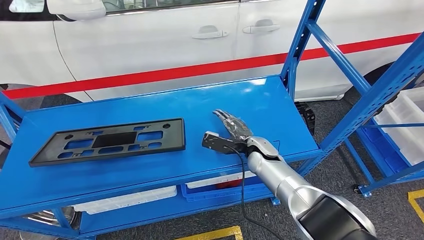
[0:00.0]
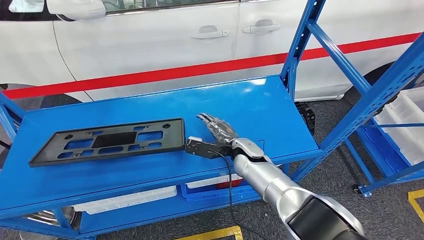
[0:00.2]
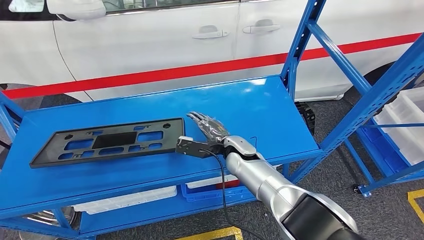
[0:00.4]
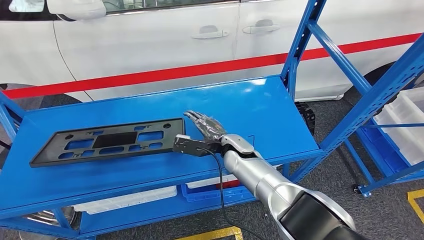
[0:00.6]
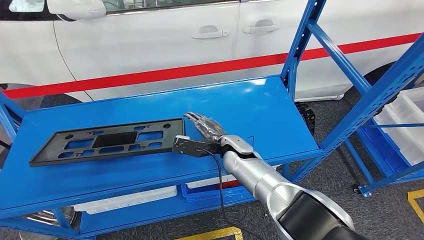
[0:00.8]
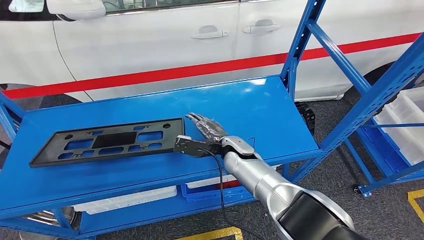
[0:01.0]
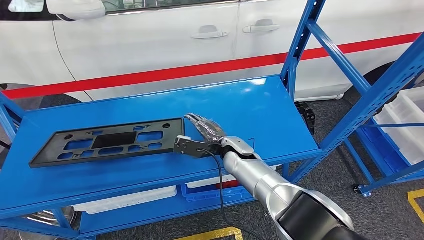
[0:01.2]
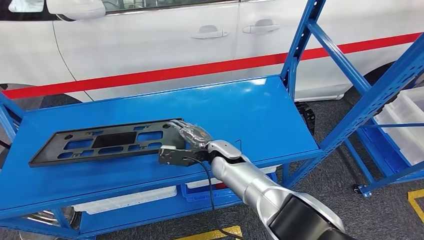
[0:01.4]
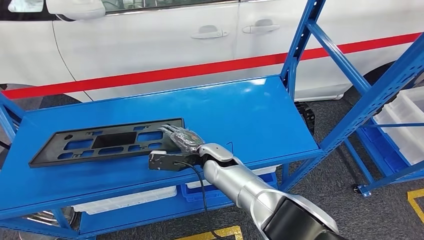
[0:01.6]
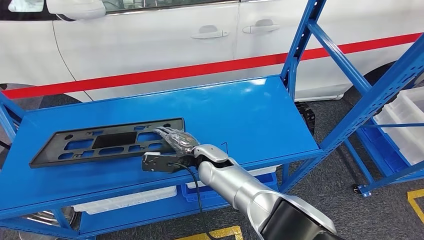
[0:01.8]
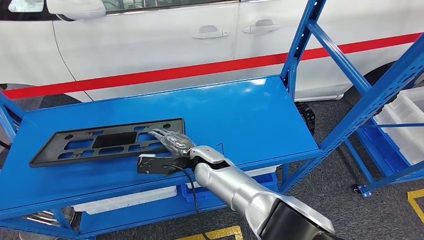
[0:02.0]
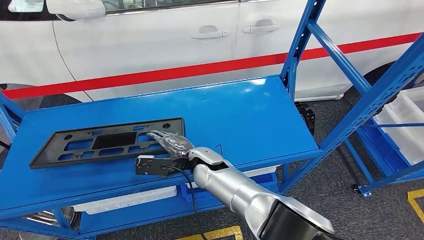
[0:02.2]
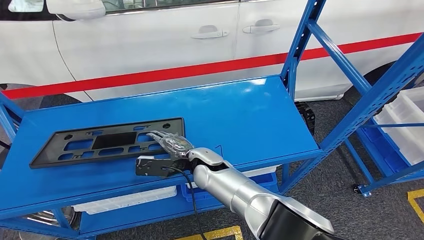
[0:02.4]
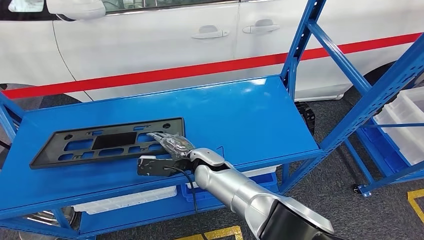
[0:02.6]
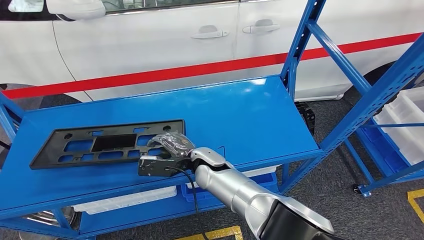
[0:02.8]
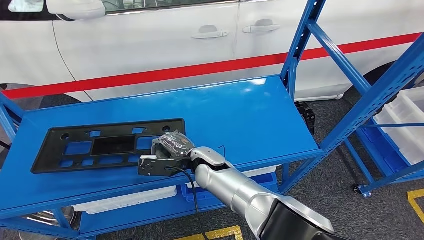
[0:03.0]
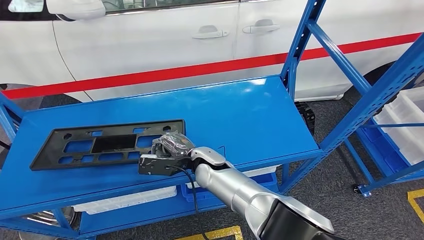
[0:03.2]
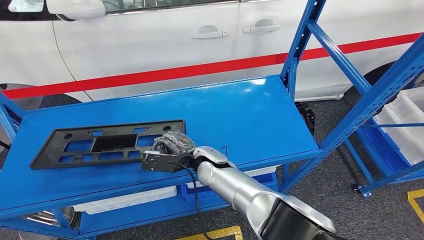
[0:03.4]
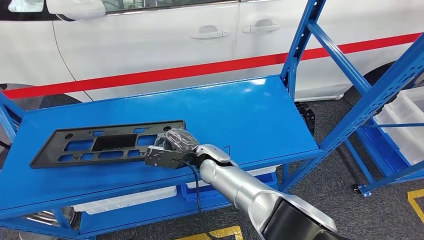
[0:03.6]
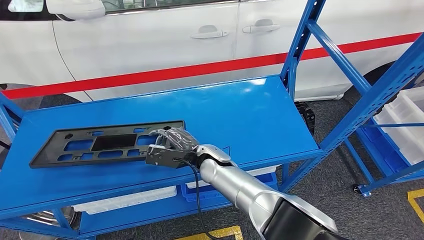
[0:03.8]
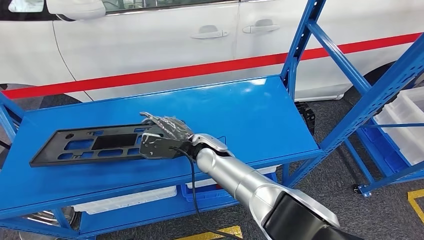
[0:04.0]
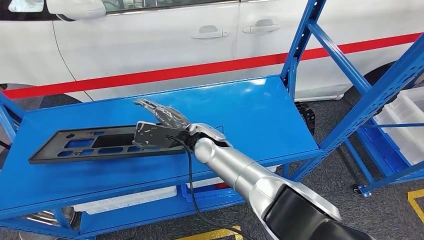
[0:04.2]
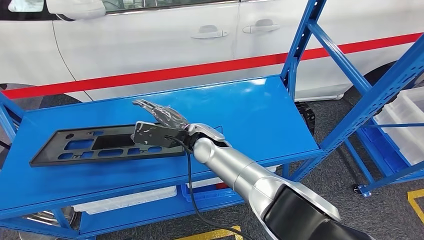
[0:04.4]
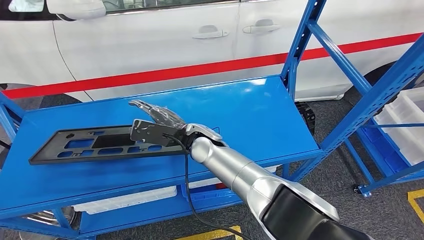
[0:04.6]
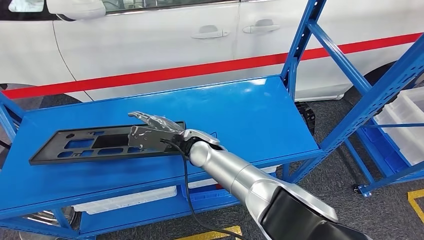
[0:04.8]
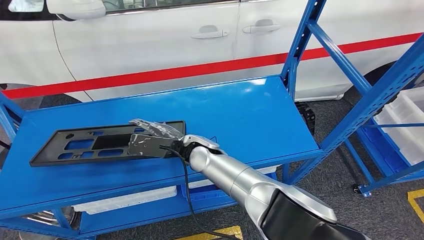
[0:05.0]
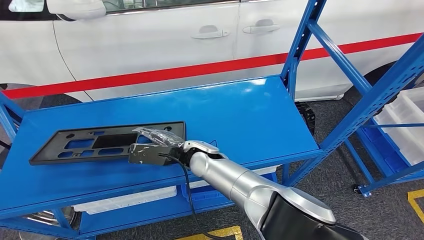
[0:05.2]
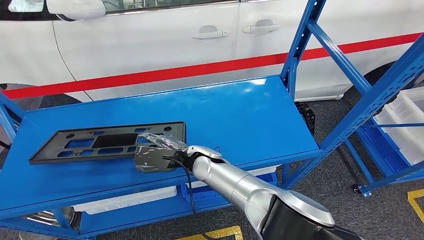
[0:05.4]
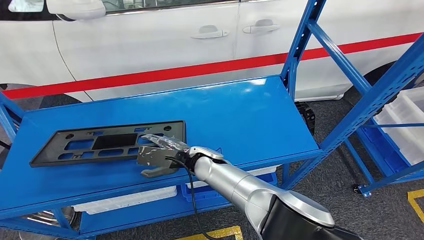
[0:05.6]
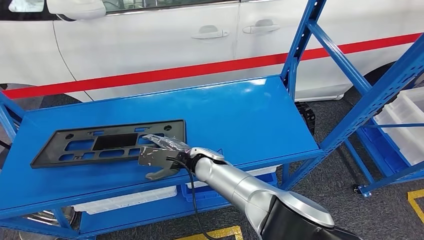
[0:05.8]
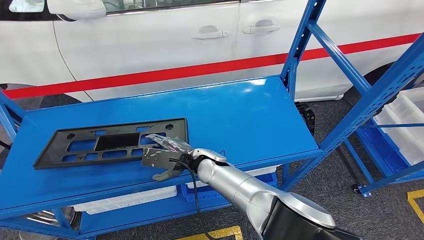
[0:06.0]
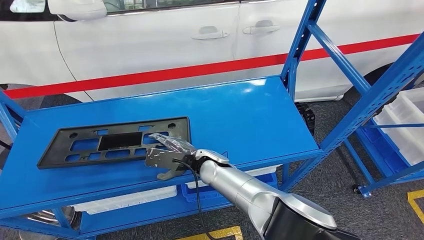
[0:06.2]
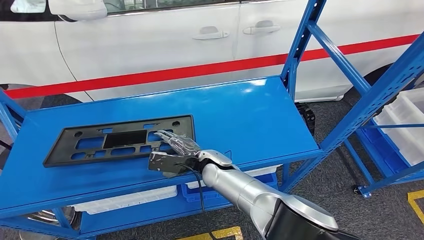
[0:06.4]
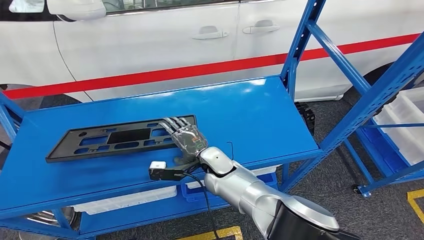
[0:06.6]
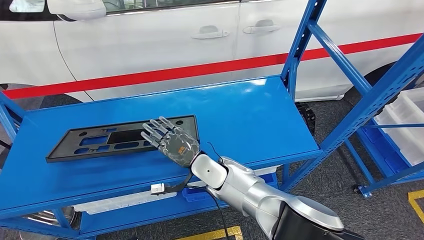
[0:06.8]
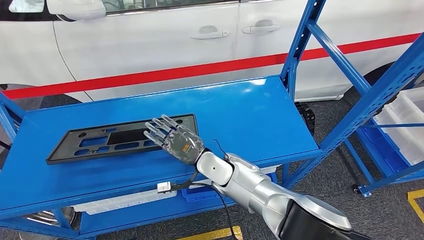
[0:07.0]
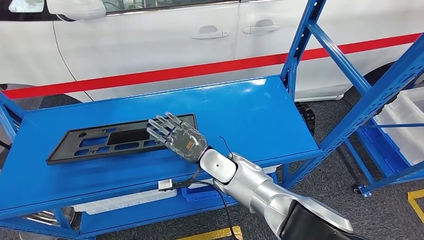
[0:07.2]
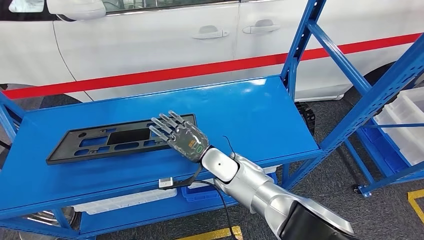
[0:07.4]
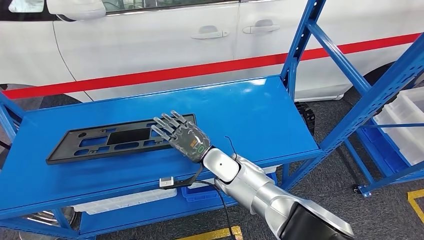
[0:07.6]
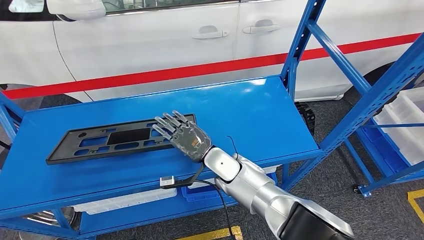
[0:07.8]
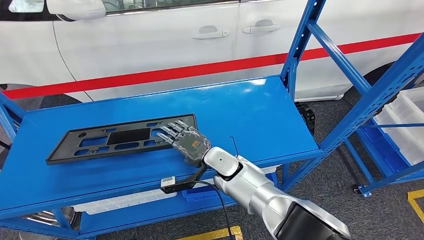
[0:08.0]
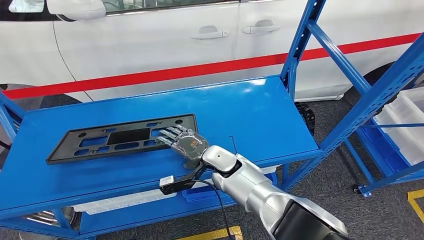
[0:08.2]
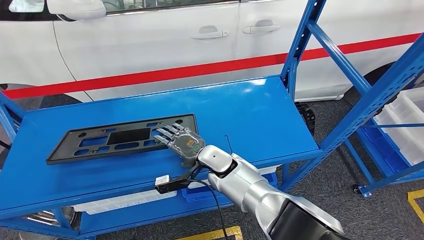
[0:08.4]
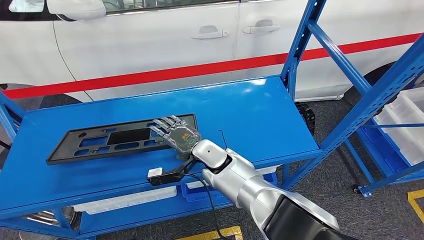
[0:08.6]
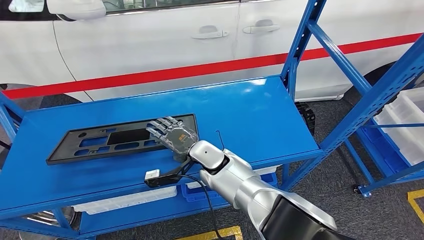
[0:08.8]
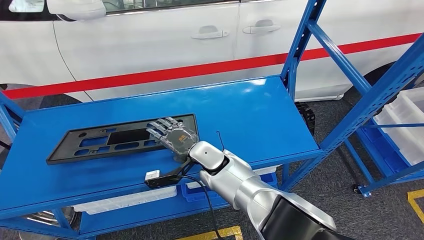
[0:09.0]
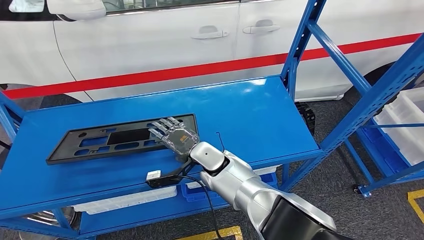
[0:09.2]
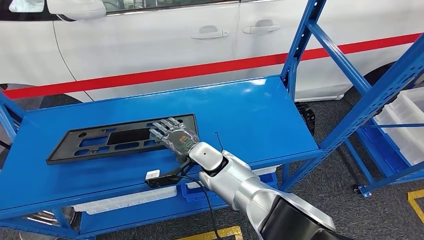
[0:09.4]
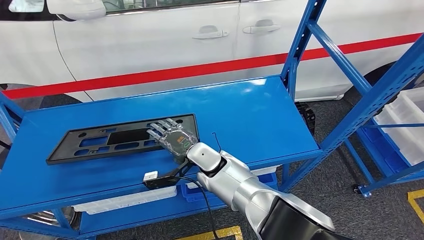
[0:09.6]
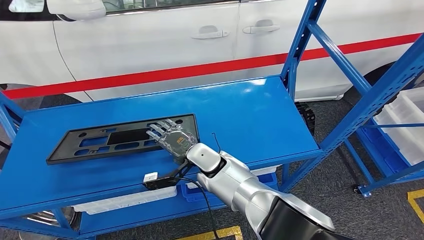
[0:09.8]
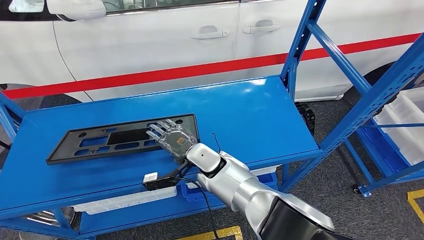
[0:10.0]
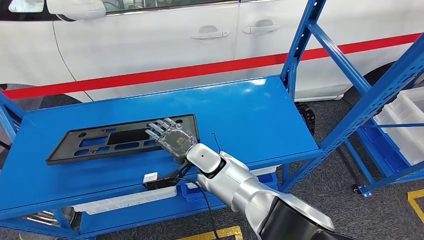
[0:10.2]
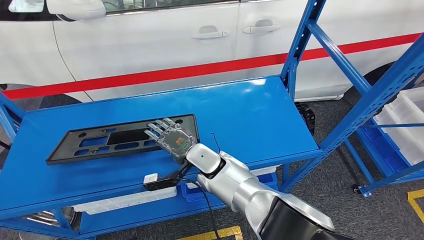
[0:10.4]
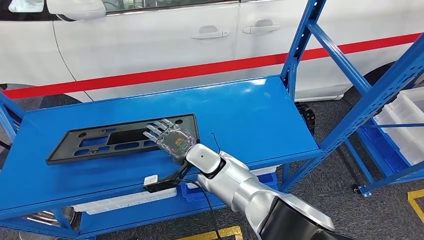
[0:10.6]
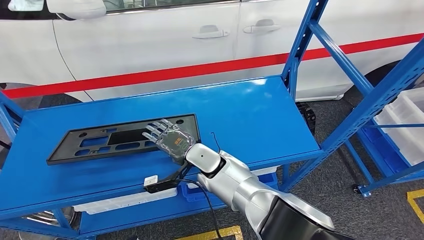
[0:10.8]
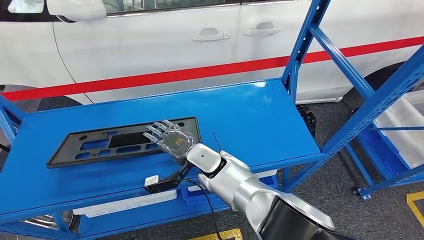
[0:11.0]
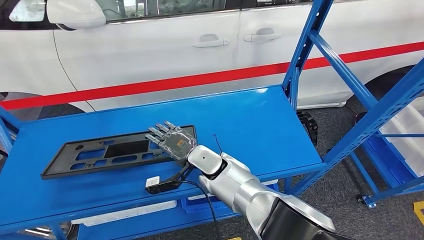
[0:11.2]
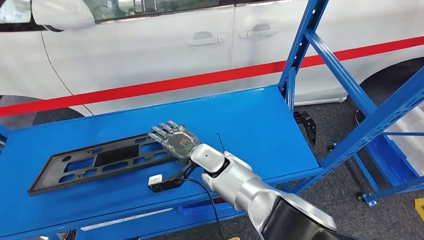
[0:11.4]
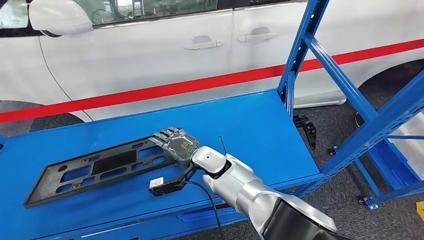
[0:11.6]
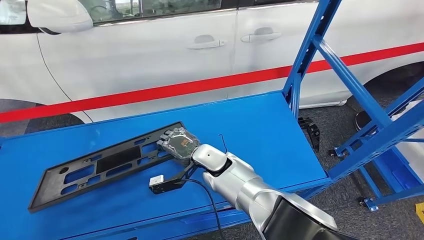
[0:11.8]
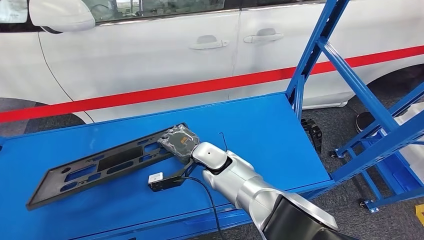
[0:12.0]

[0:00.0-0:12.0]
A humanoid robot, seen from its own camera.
0:00.0 to 0:01.6: The right hand shifts approximately 15 cm to the left.
0:01.6 to 0:03.0: The hands make only small movements.
0:03.0 to 0:04.4: The right hand goes roughly 5 cm upward.
0:04.4 to 0:06.0: The right hand travels downward by approximately 10 cm.
0:09.0 to 0:10.4: The two hands keep their place.

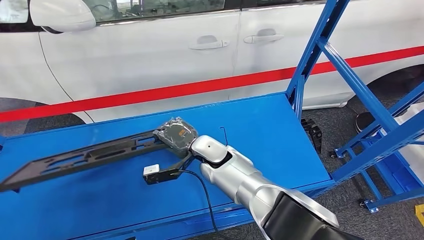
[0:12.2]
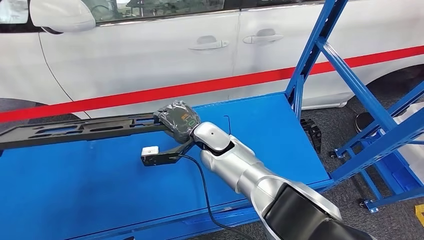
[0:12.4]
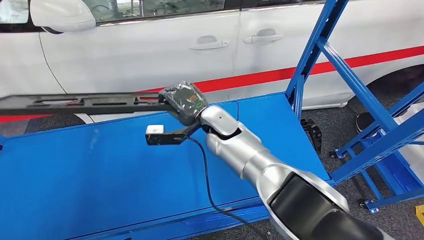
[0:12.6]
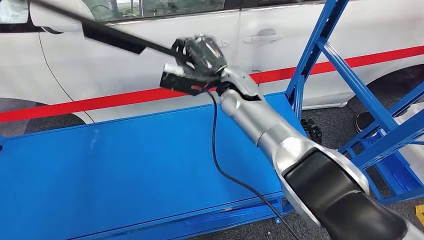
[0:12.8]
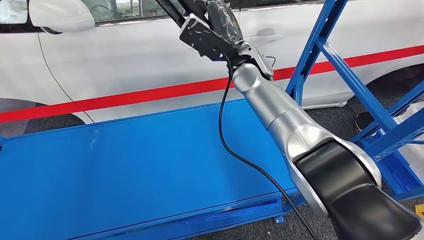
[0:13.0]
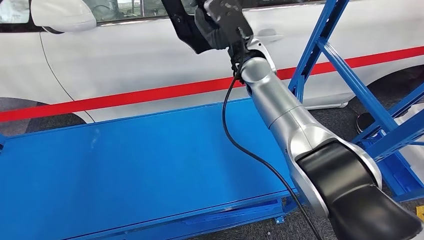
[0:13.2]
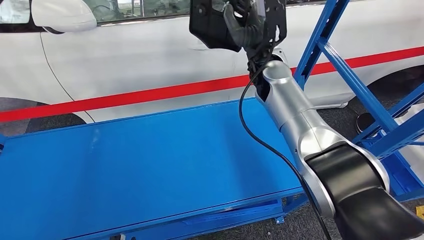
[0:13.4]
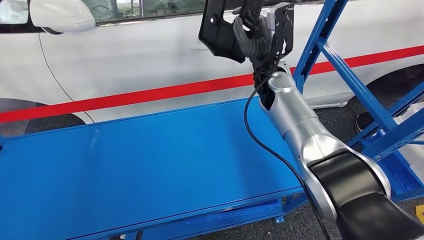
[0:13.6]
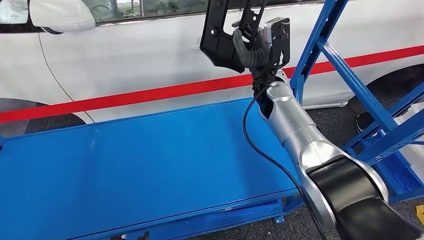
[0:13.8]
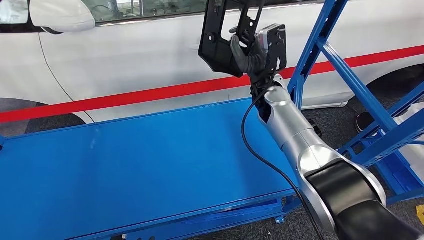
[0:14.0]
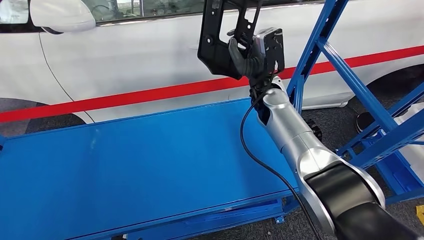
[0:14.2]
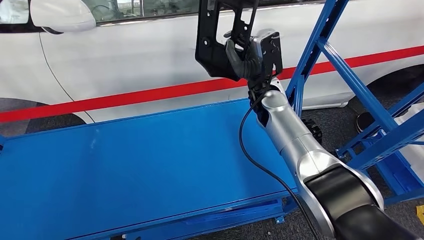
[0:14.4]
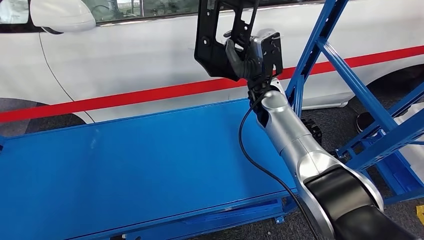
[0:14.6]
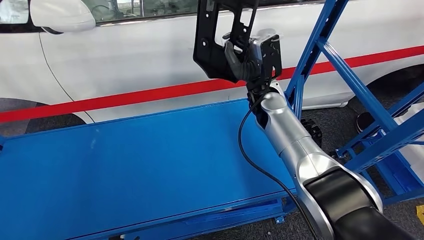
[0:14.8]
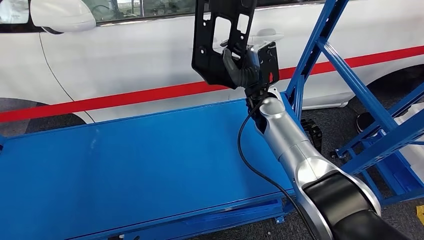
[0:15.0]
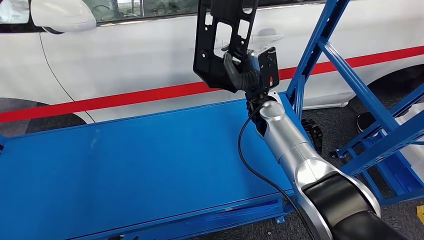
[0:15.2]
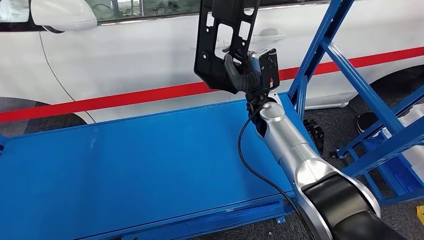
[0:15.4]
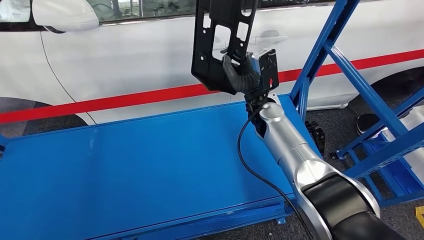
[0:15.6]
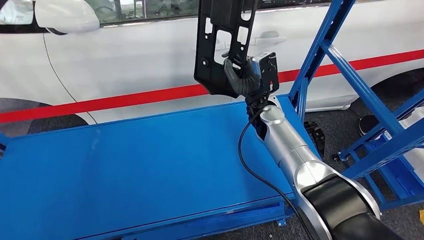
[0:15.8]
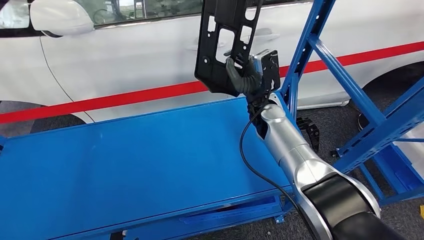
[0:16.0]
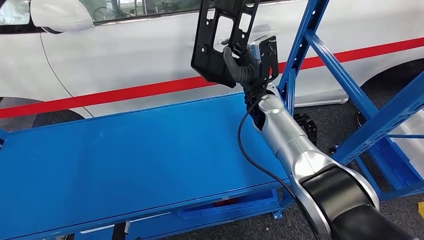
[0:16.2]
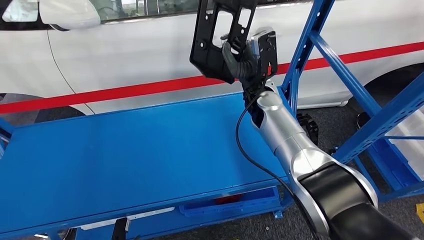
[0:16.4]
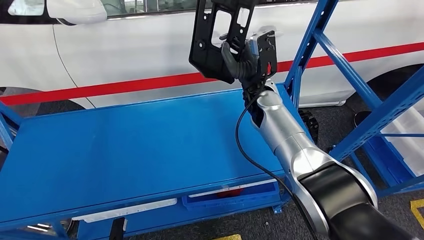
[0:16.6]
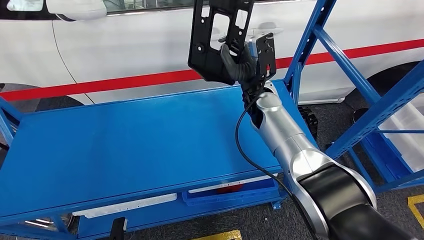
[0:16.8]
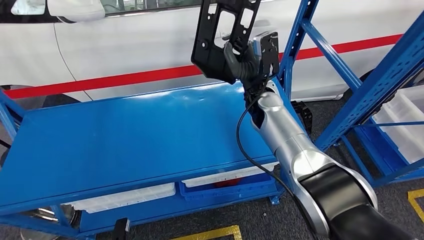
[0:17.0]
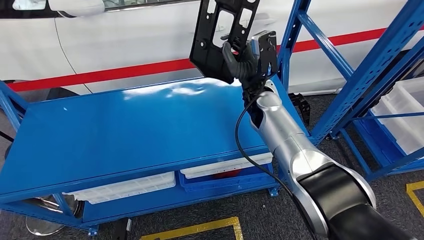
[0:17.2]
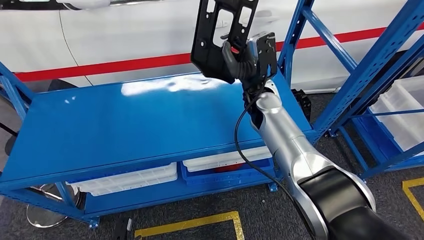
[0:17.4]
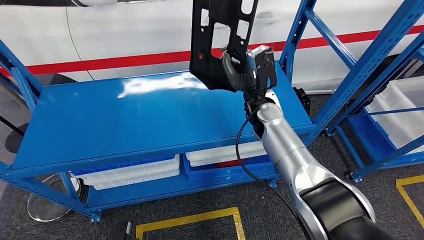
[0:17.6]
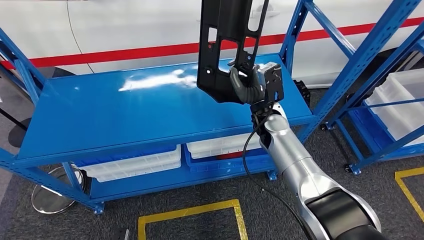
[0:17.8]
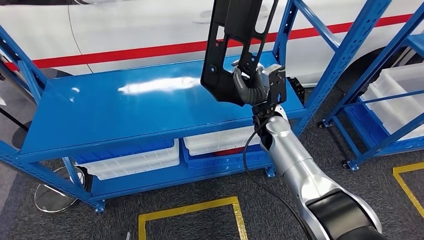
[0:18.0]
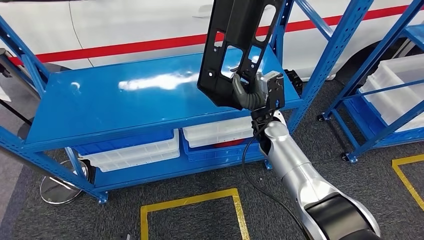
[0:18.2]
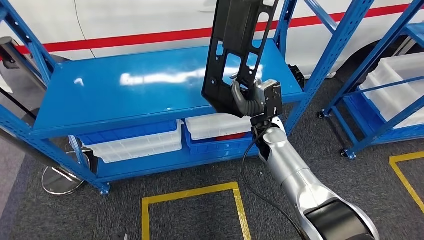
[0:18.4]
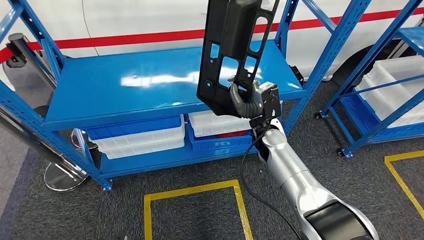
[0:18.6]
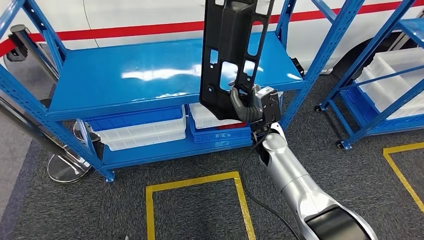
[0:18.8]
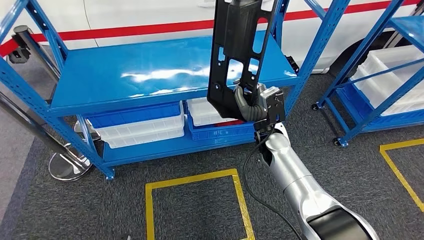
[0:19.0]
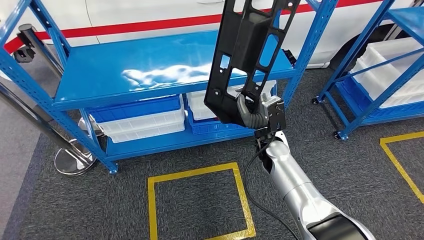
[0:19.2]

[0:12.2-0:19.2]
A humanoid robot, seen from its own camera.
0:13.6 to 0:15.0: The right hand goes about 5 cm downward.
